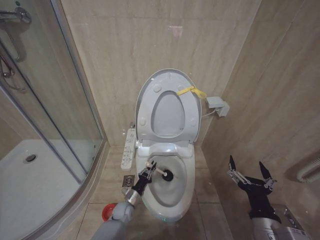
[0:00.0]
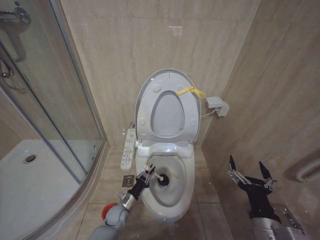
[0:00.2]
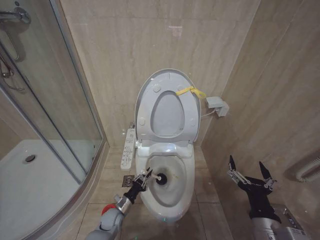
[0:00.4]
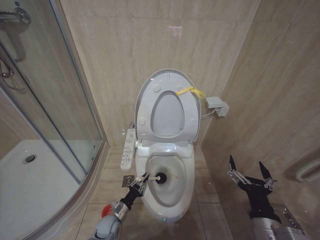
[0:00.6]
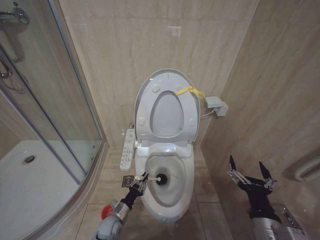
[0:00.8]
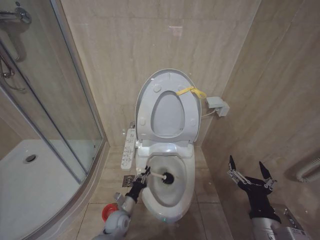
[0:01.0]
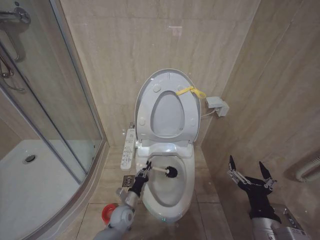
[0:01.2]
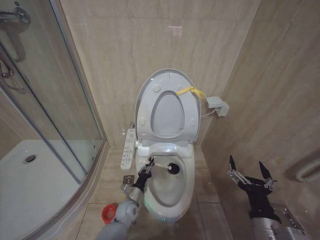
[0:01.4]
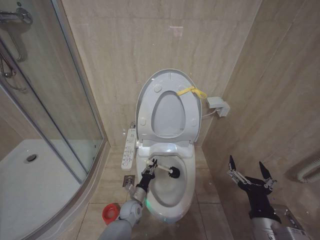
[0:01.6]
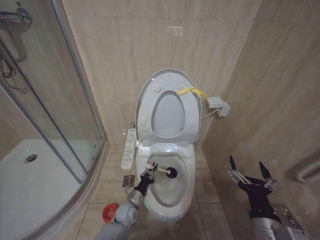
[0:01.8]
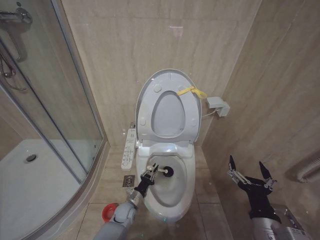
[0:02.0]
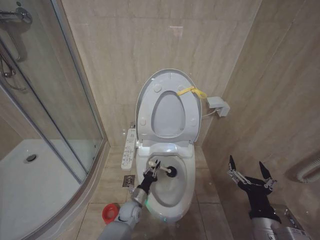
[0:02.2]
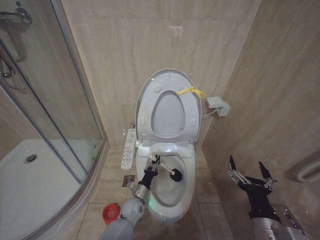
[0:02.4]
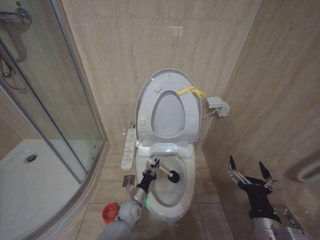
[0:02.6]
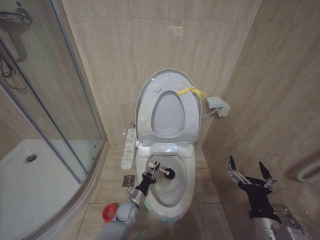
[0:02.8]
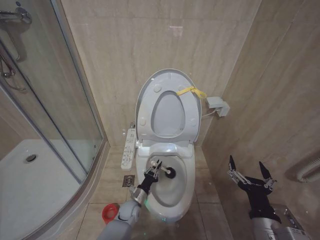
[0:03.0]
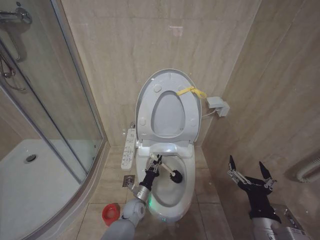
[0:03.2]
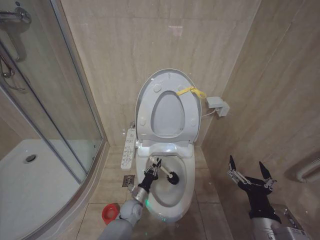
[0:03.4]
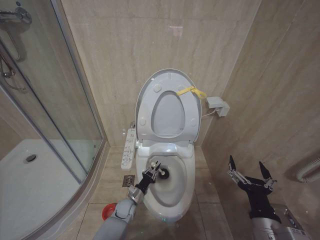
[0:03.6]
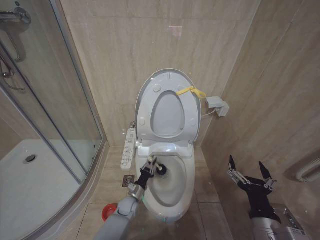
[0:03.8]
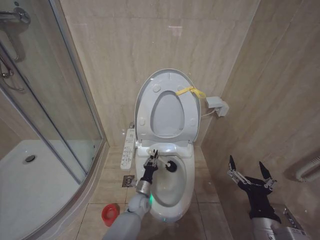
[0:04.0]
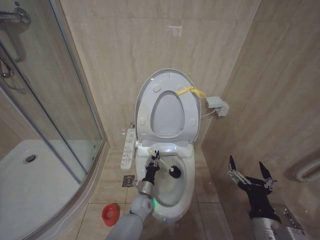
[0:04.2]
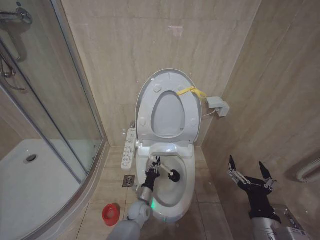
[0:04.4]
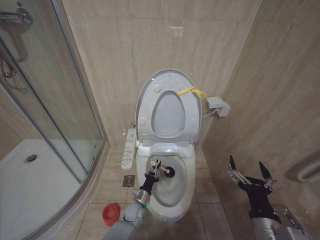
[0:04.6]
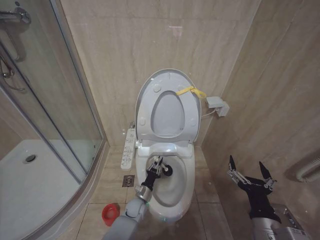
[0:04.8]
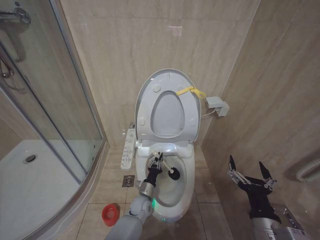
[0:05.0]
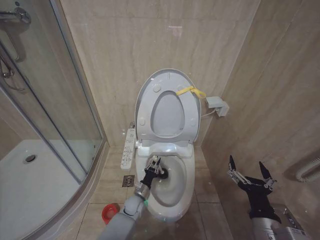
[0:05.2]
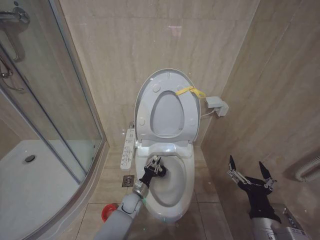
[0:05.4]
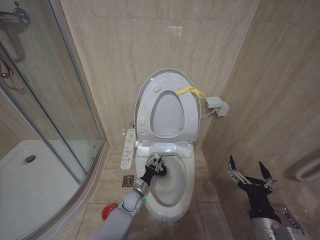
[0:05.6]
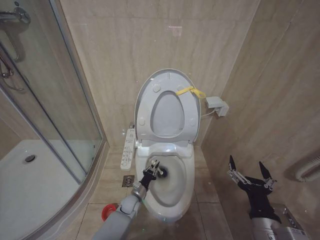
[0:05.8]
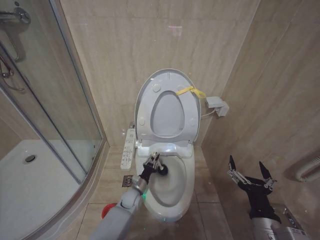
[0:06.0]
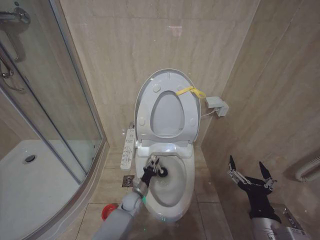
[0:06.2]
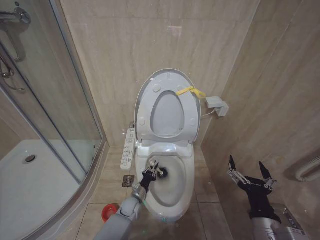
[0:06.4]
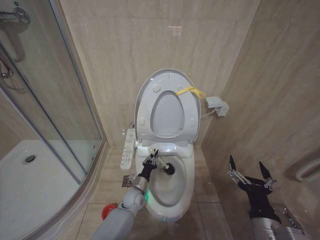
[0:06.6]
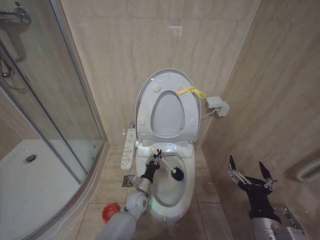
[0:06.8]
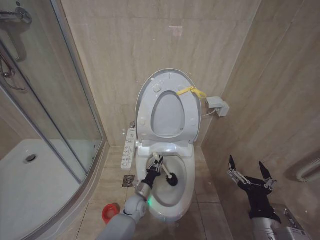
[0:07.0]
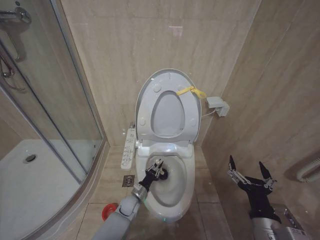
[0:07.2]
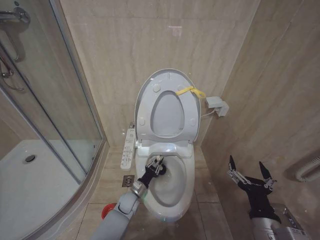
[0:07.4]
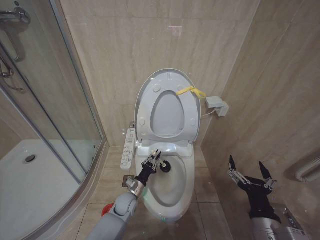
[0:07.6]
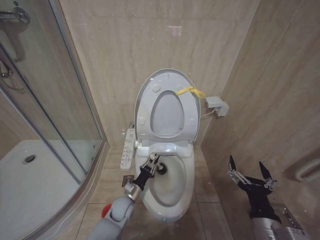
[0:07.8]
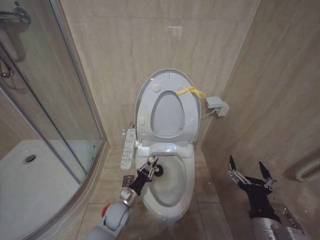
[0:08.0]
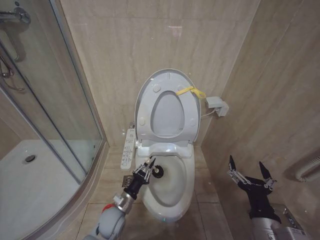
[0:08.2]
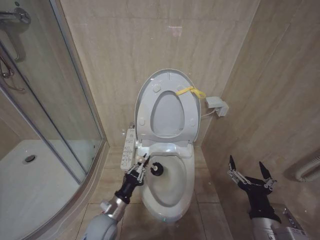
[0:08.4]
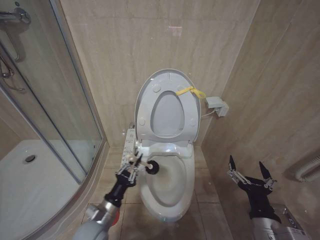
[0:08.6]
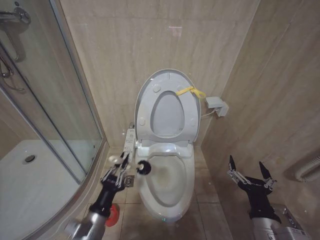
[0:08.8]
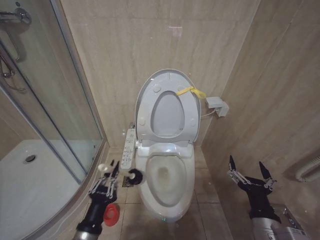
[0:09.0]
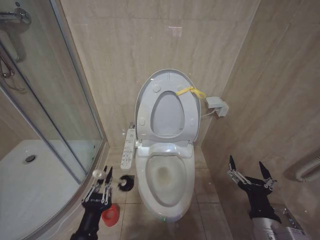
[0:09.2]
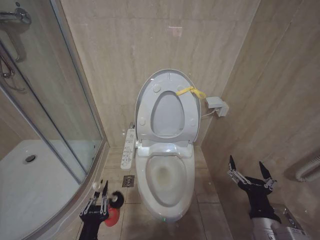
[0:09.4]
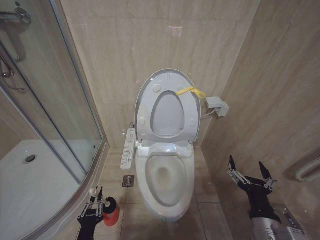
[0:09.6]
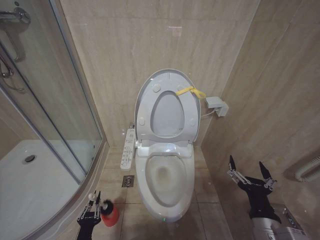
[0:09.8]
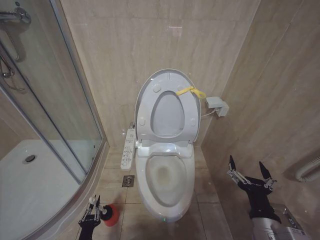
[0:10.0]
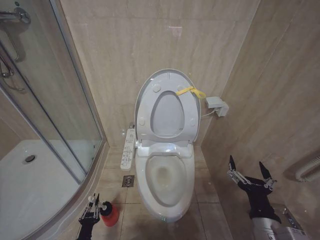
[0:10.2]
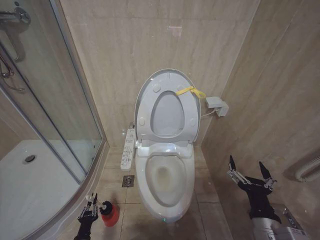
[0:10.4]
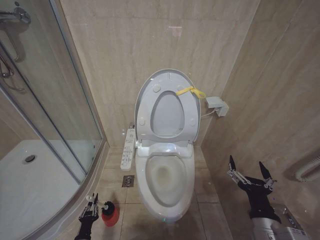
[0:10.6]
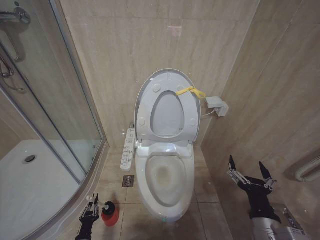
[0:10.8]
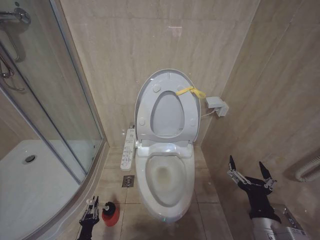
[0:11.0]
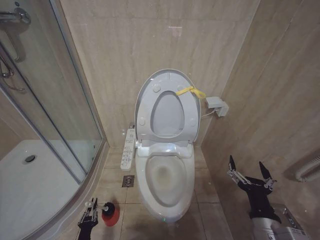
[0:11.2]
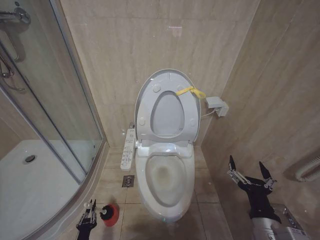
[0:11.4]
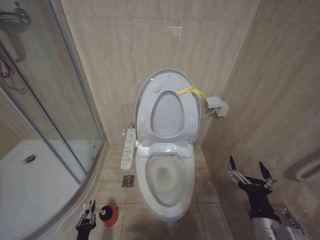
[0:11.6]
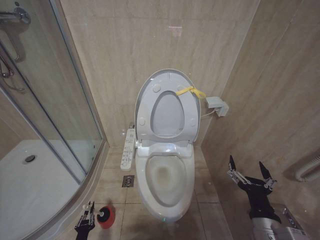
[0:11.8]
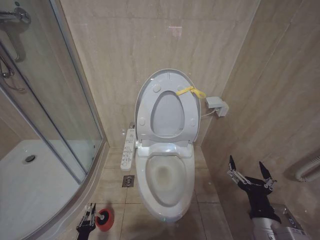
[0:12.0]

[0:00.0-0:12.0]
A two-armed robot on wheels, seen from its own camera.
Task of the whole recording: Open the toilet lid, clean the toilet bowl with a toilet brush, close the toilet lid, and flush.
0:00.0 to 0:01.6: The left gripper moves approximately 5 cm to the left and comes back.
0:03.0 to 0:04.4: The left gripper heads to the right, covering approximately 5 cm.
0:04.4 to 0:06.0: The left gripper is displaced to the left by roughly 5 cm.
0:06.0 to 0:07.6: The left gripper goes up and down, roughly 5 cm each way, reversing 2 times.
0:07.6 to 0:09.0: The left gripper heads backward, upward and to the left, covering about 30 cm.
0:09.0 to 0:10.4: The left gripper heads downward, covering about 25 cm.
0:10.4 to 0:12.0: The left gripper shifts some 5 cm downward.

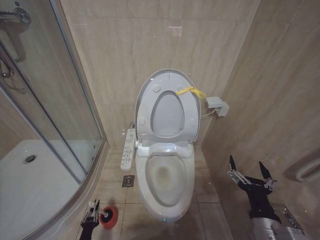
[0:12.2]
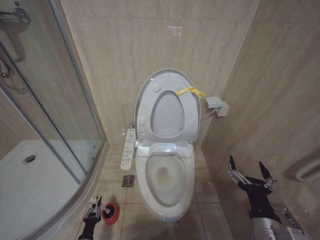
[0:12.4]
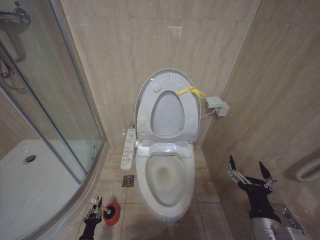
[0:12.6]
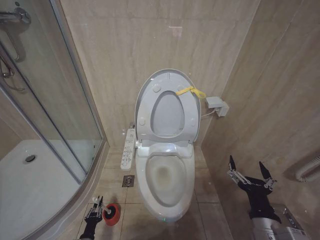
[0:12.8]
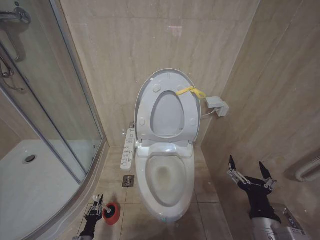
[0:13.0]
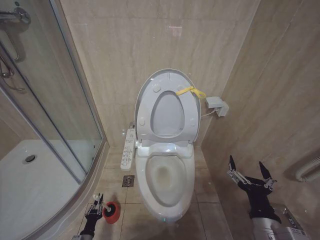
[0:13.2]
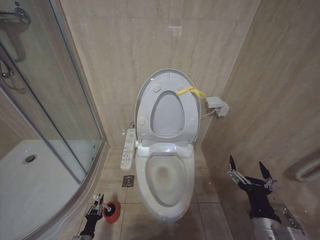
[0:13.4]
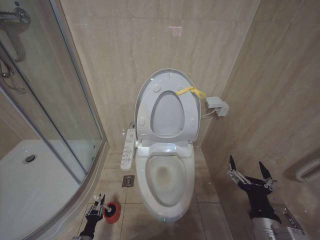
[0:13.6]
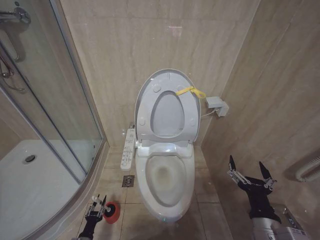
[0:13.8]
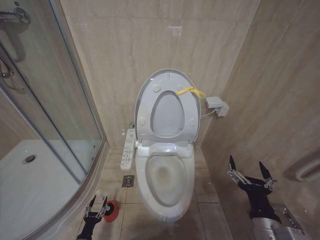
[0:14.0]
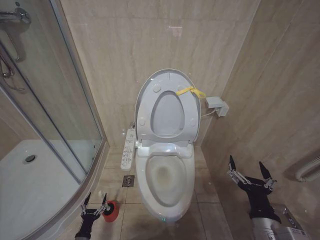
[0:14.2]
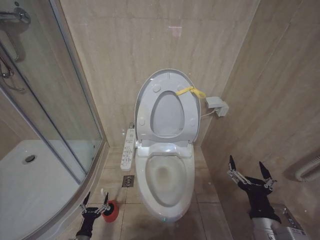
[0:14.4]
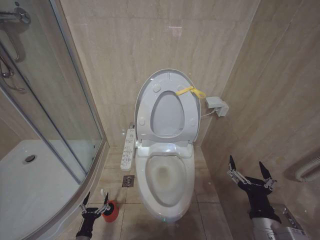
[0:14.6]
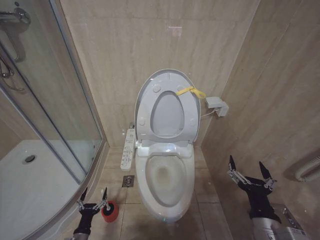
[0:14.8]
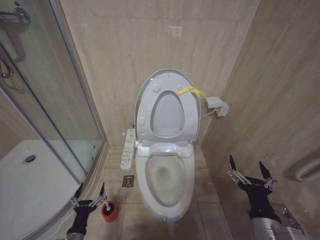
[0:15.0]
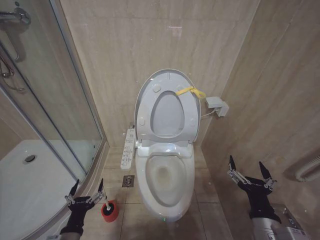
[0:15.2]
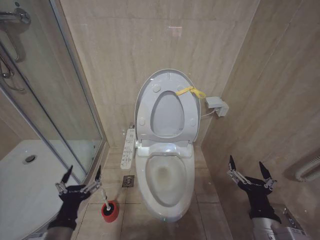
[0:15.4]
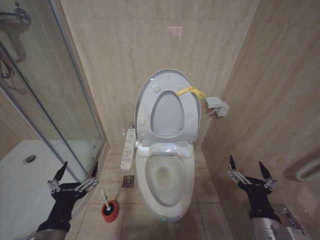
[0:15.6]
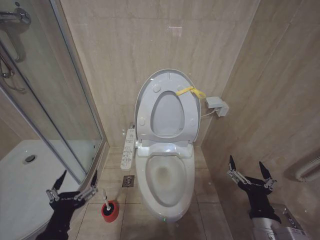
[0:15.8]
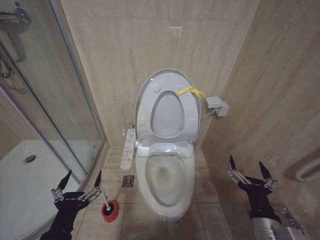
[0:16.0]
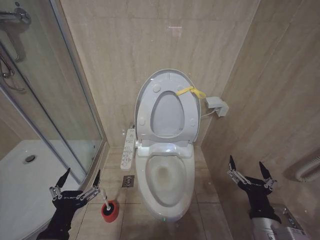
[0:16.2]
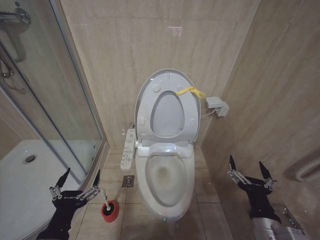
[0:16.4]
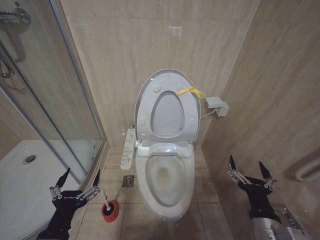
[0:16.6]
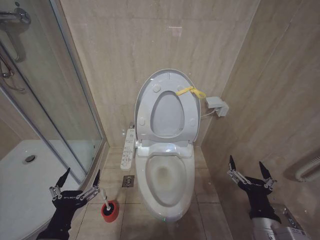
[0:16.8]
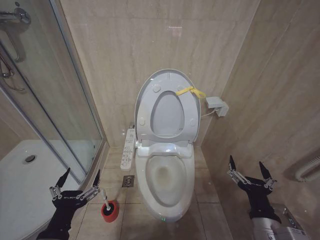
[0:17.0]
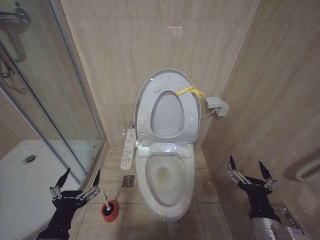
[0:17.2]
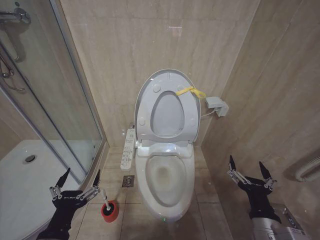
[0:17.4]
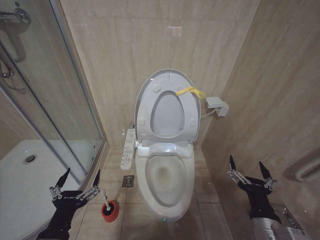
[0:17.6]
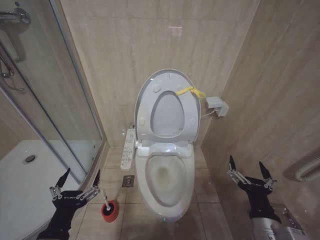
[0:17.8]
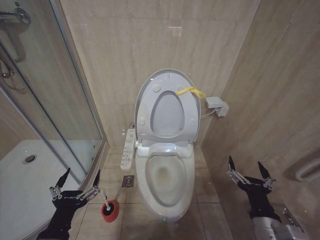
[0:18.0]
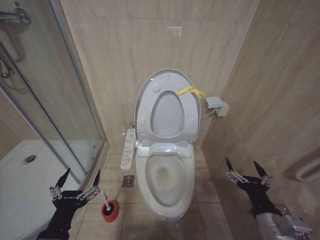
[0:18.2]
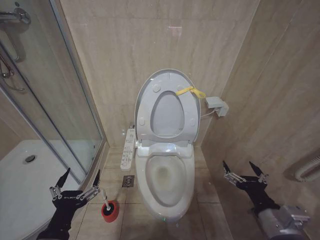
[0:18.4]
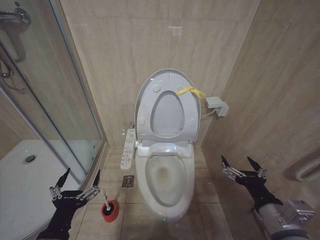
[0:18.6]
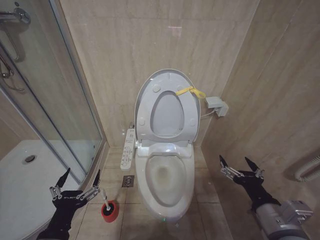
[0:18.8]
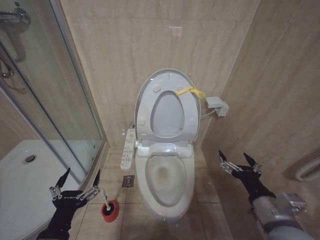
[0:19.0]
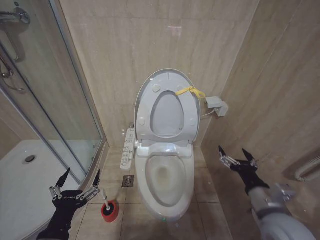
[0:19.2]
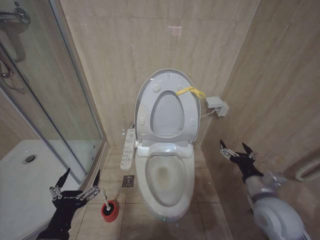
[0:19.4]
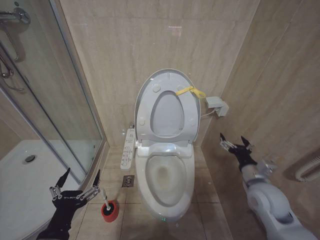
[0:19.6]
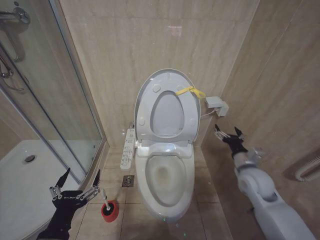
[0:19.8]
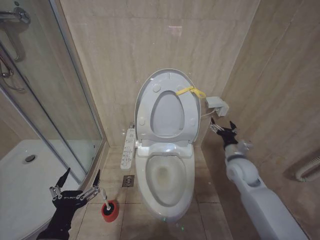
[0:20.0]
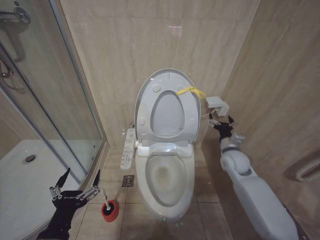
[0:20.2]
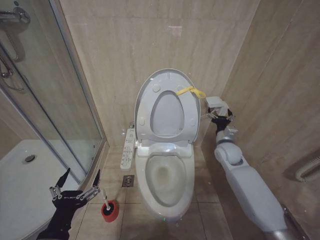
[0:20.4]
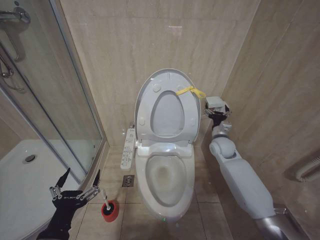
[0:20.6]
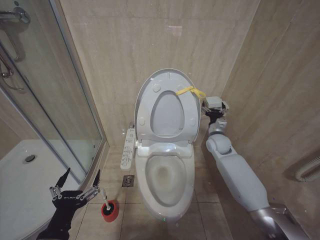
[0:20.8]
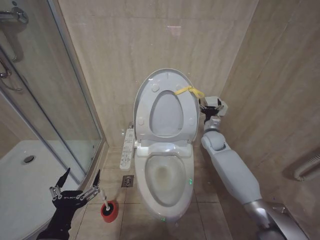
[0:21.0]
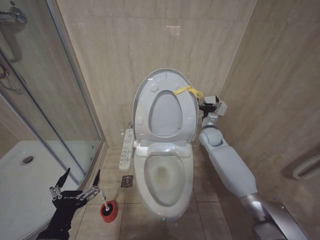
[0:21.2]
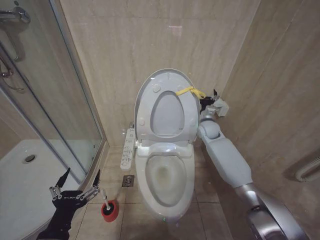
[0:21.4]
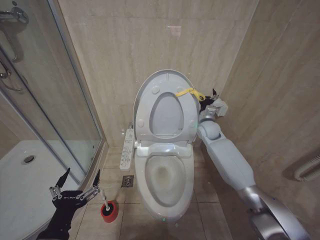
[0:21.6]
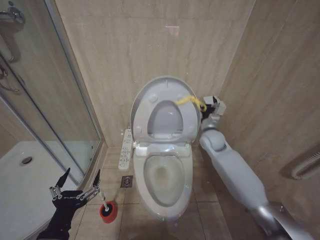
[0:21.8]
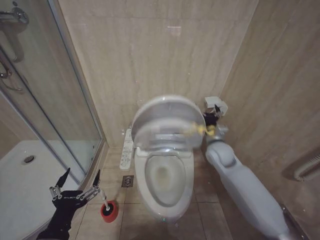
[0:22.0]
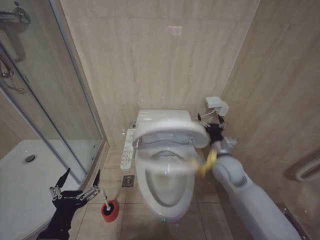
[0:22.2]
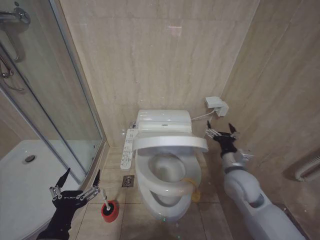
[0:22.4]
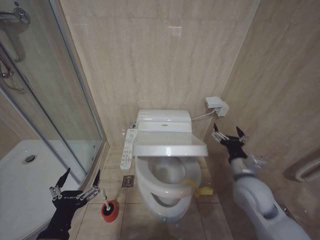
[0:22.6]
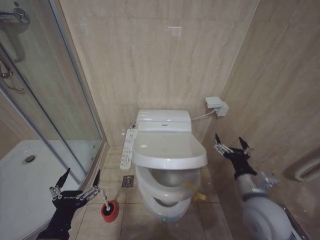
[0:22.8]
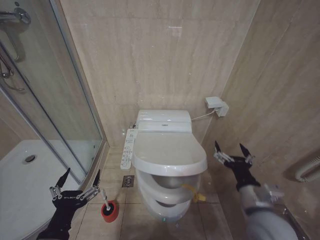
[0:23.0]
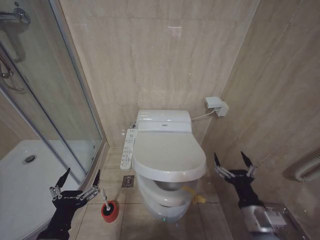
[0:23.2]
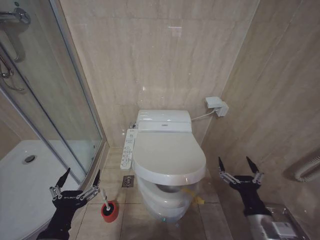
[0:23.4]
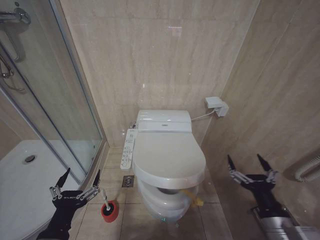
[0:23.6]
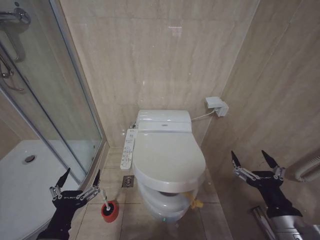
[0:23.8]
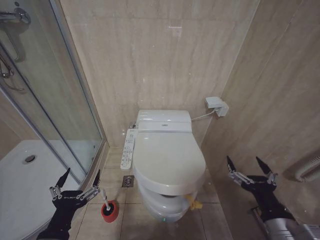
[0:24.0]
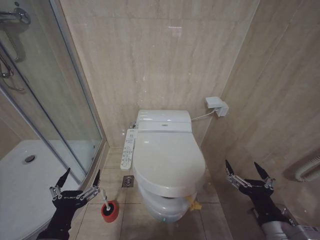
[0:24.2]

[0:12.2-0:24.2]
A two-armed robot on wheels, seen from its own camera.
Task of the whole recording: Open the toilet lid, clean the toilet bowl with a toilet brush, close the toilet lid, and flush.
0:13.8 to 0:15.2: The left gripper moves upward, some 25 cm, and opens.
0:15.2 to 0:16.6: The left gripper goes approximately 15 cm upward.
0:16.6 to 0:18.2: The grippers move only a little.
0:18.2 to 0:19.8: The right gripper heads forward, covering about 20 cm.
0:19.8 to 0:21.2: The right gripper shifts about 25 cm forward.
0:21.2 to 0:22.6: The right gripper shifts about 25 cm backward.
0:22.6 to 0:24.2: The right gripper moves backward, roughly 20 cm.
